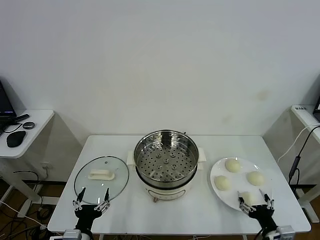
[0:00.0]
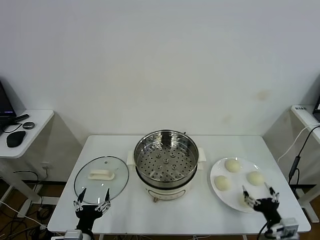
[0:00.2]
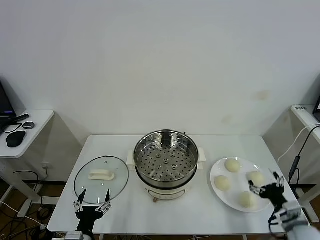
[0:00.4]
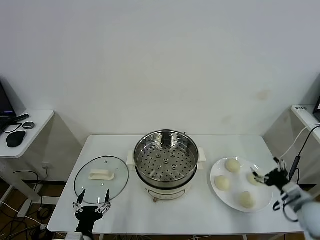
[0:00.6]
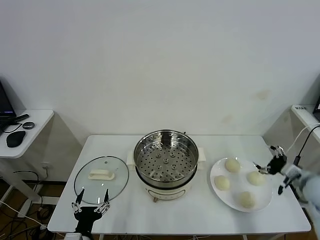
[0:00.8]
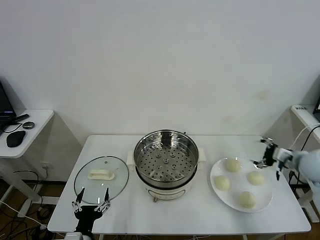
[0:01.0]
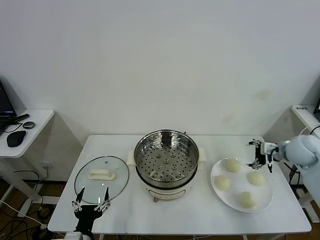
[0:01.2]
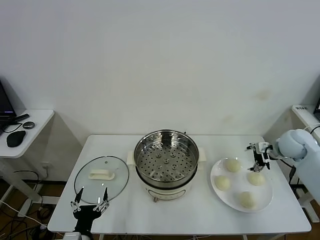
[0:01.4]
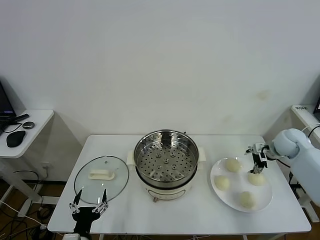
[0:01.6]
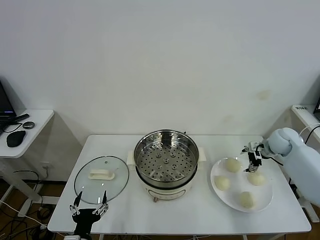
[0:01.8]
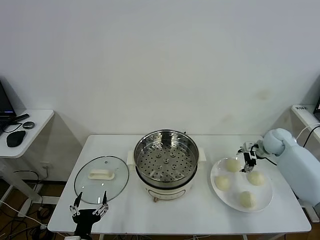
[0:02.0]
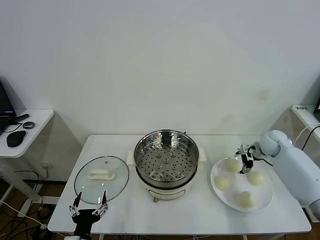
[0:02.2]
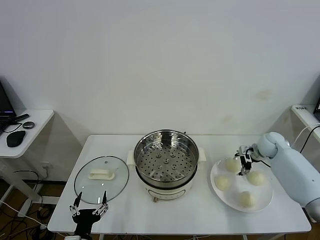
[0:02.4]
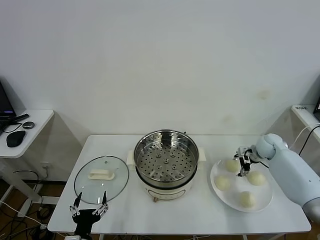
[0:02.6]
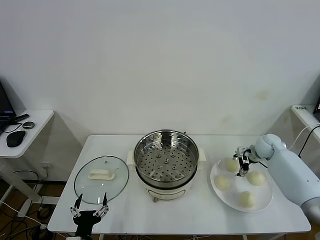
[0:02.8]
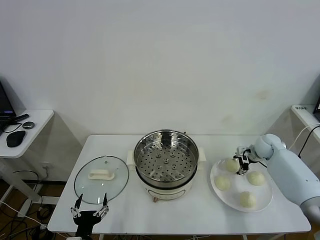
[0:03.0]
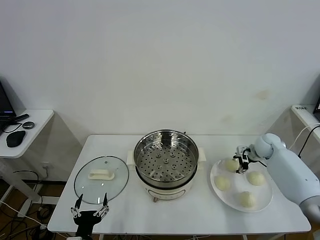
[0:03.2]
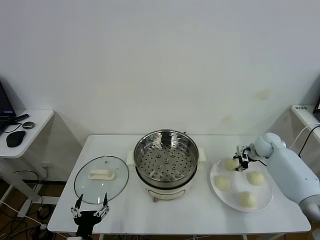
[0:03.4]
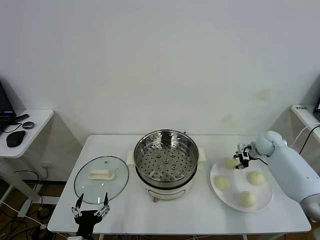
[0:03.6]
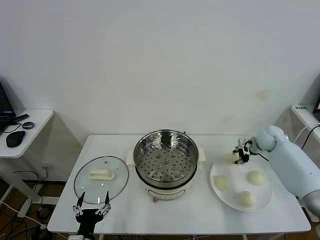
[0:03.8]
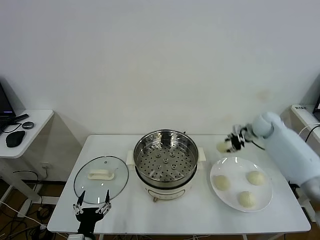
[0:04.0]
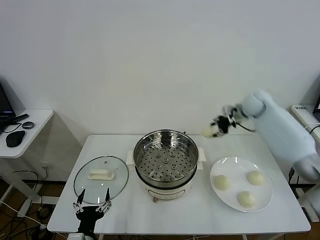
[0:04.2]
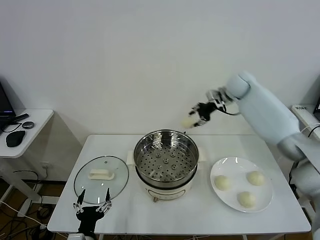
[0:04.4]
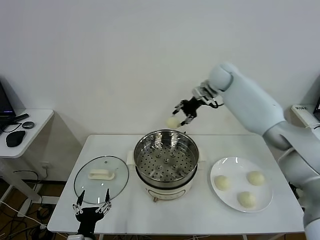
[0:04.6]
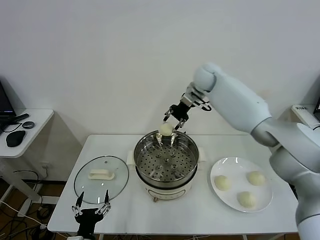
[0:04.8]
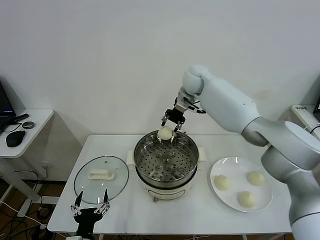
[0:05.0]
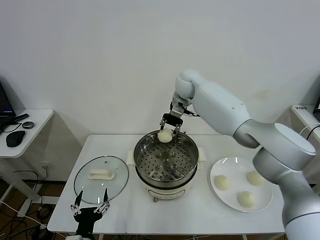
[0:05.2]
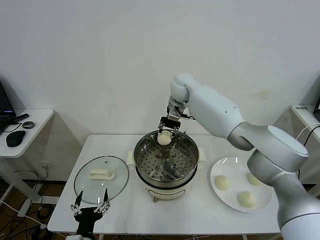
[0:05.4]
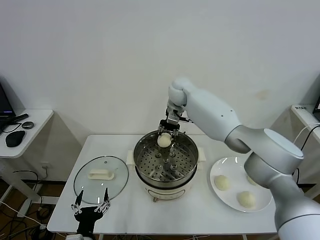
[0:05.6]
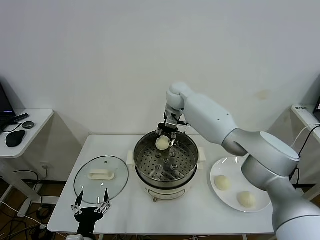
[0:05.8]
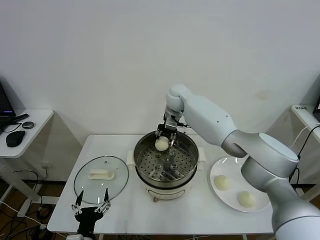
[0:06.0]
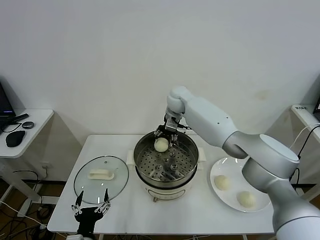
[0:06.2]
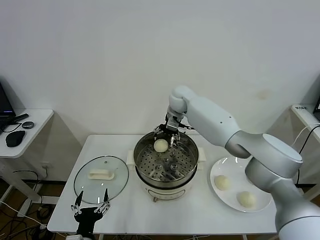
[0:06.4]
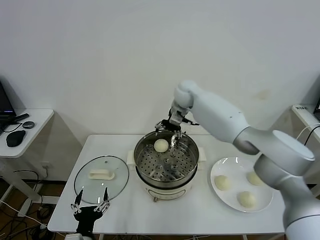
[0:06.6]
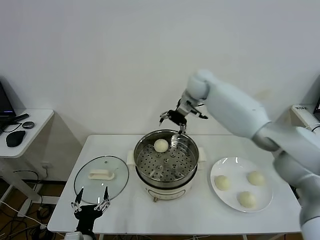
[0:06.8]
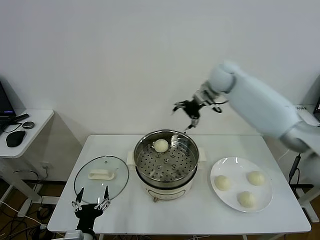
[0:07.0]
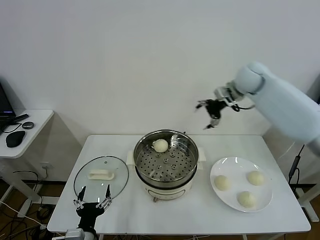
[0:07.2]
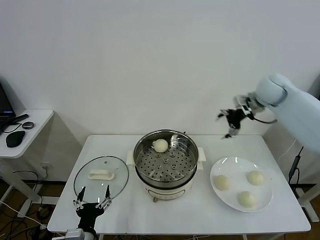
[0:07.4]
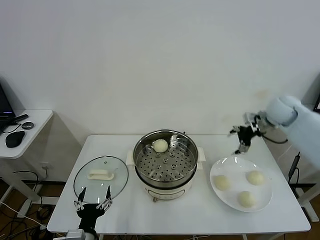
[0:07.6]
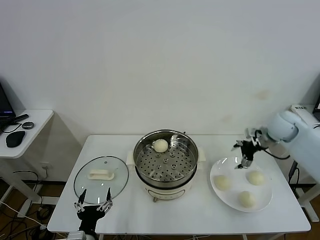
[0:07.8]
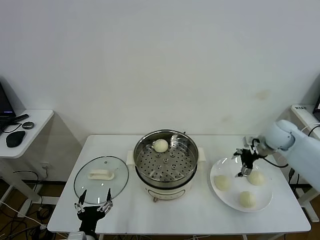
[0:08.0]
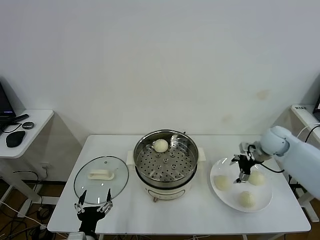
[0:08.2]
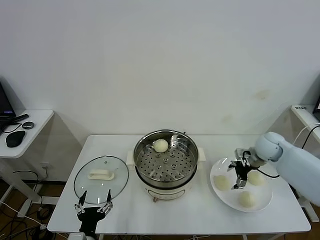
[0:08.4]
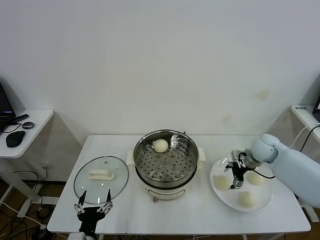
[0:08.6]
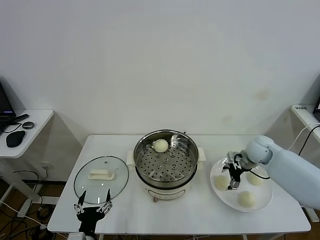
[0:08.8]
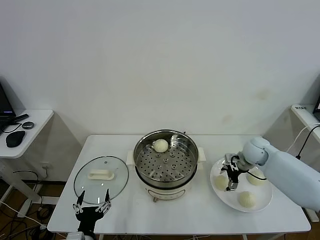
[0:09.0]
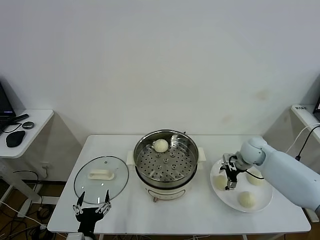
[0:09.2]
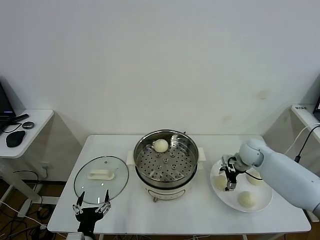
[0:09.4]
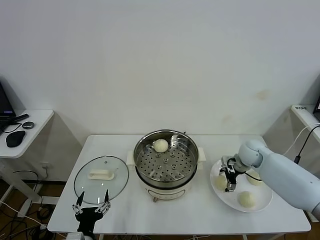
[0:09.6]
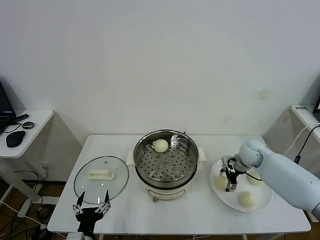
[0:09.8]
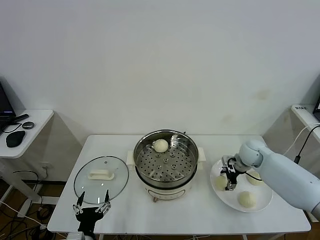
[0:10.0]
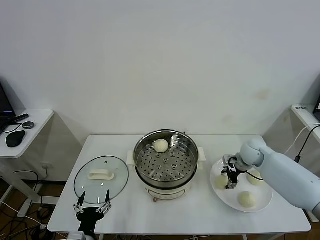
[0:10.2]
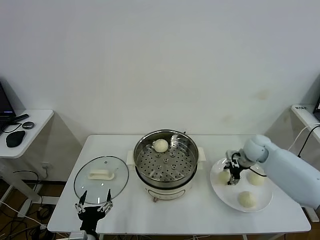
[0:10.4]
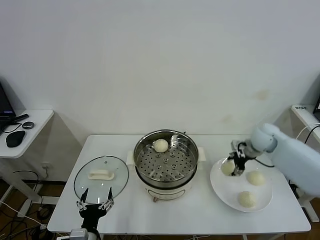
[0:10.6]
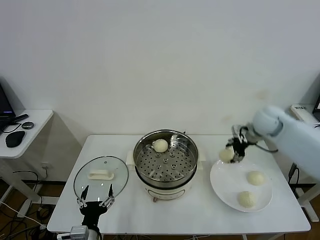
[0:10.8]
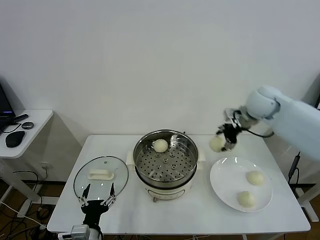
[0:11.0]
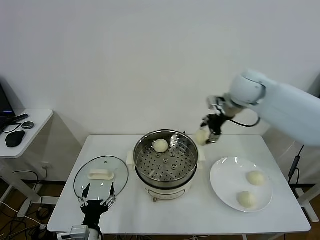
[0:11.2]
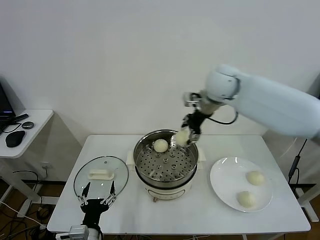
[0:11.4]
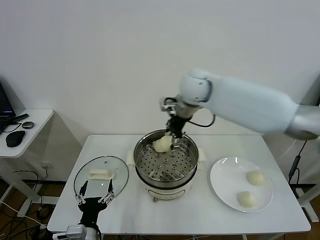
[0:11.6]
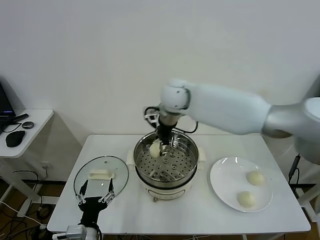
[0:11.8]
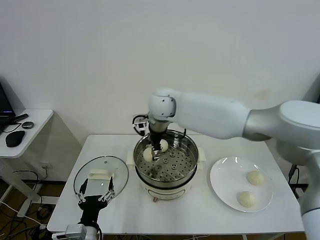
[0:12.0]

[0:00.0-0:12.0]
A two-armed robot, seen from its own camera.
Task of the whole recording: take steamed baozi put them in steamer.
Step, 0:00.0 to 0:03.4: Grasp the baozi in the plate with right gripper.
Step, 0:03.6 to 0:06.4: Place the baozi on the steamer with right gripper.
Step, 0:06.6 to 0:10.0: Grasp the baozi in the plate with right gripper.
0:01.6 to 0:03.0: The right gripper is displaced downward by roughly 5 cm.
0:03.0 to 0:04.4: The right gripper goes roughly 30 cm upward, to the left and forward, and closes its fingers.
0:04.4 to 0:06.0: The right gripper travels to the left by some 20 cm.
0:06.0 to 0:07.6: The right gripper moves to the right, approximately 35 cm, and opens its fingers.
0:07.6 to 0:09.0: The right gripper moves downward, about 15 cm.
0:09.0 to 0:10.4: The right gripper closes its fingers.
0:10.4 to 0:12.0: The right gripper shifts approximately 40 cm to the left and upward.

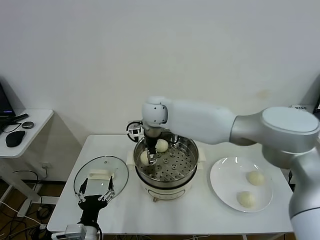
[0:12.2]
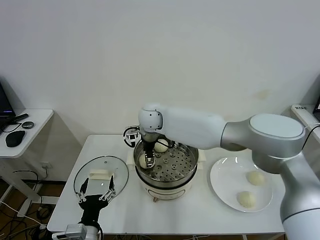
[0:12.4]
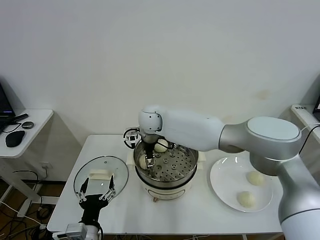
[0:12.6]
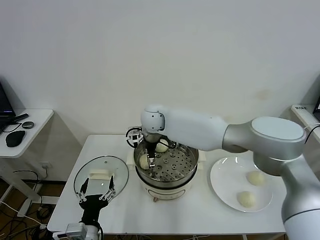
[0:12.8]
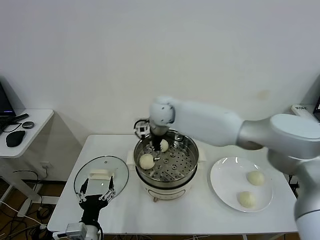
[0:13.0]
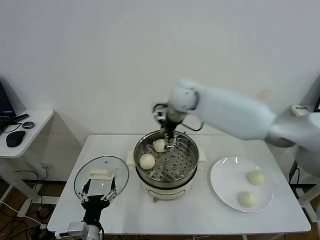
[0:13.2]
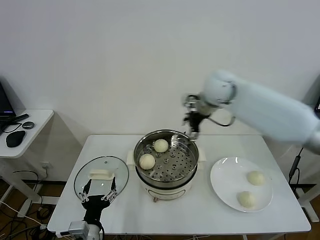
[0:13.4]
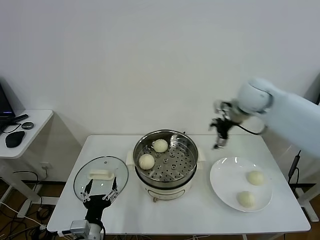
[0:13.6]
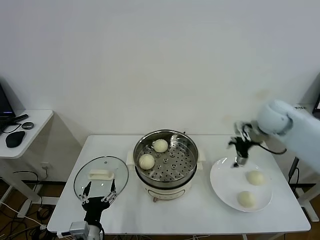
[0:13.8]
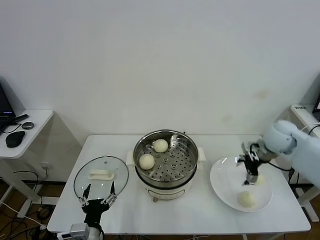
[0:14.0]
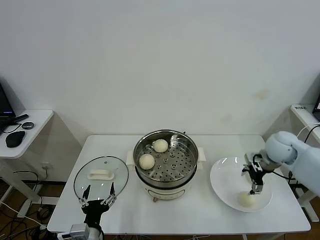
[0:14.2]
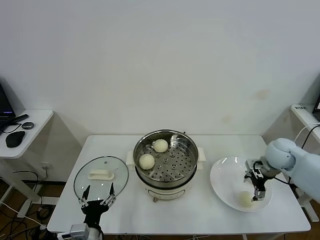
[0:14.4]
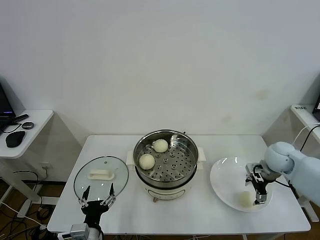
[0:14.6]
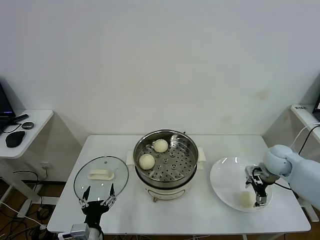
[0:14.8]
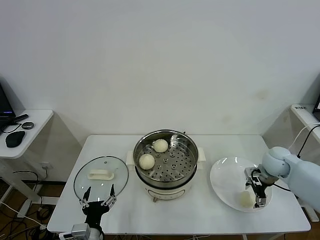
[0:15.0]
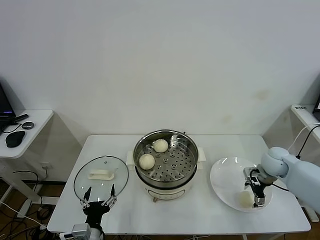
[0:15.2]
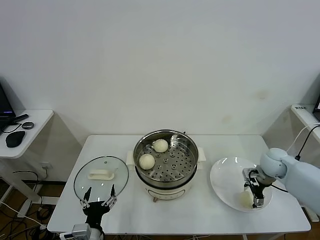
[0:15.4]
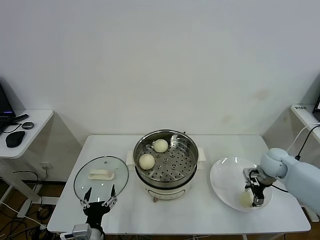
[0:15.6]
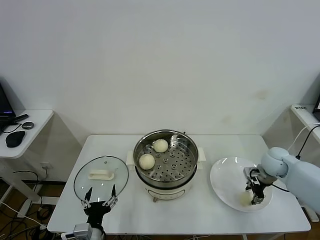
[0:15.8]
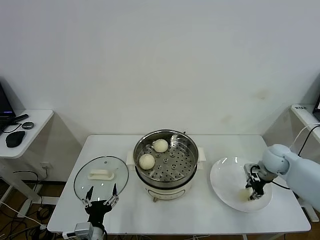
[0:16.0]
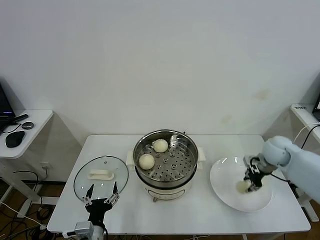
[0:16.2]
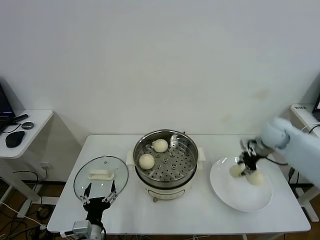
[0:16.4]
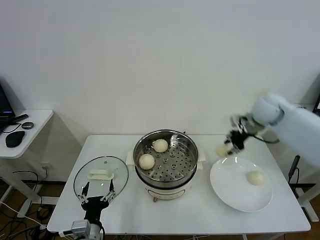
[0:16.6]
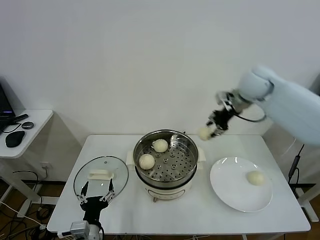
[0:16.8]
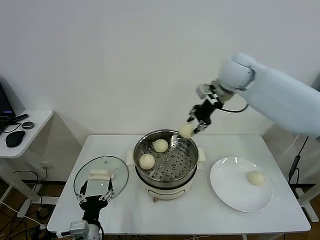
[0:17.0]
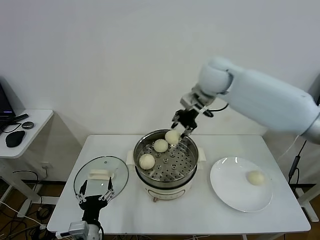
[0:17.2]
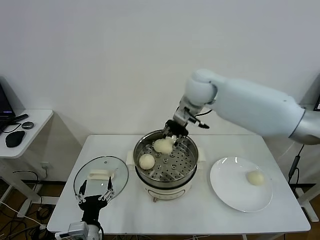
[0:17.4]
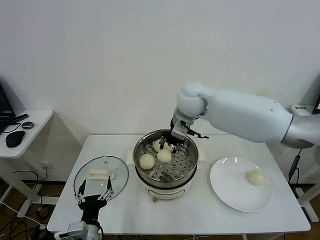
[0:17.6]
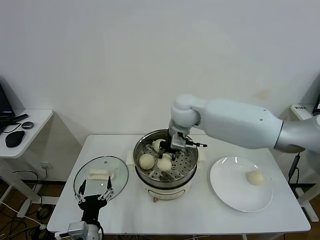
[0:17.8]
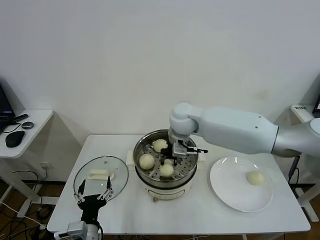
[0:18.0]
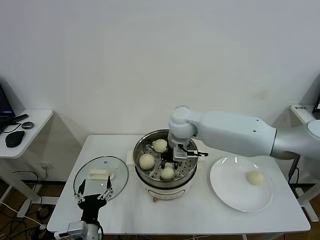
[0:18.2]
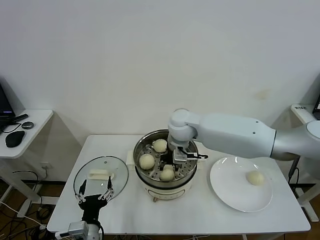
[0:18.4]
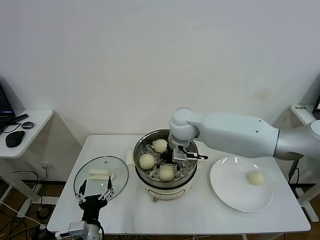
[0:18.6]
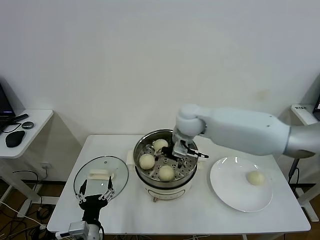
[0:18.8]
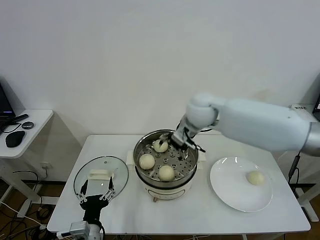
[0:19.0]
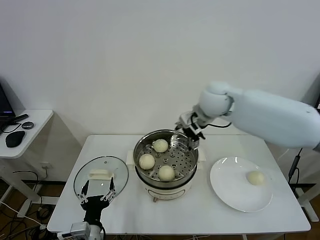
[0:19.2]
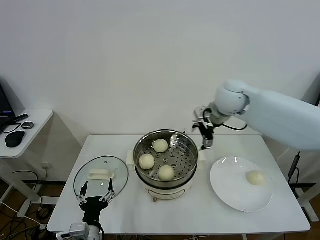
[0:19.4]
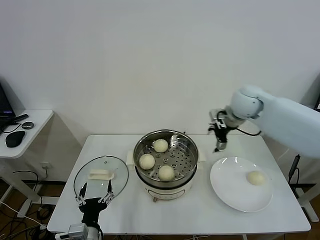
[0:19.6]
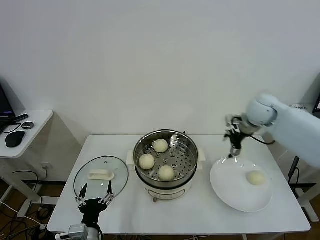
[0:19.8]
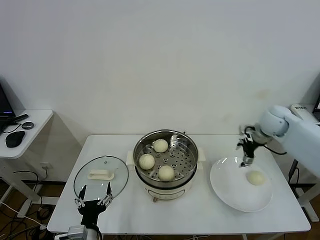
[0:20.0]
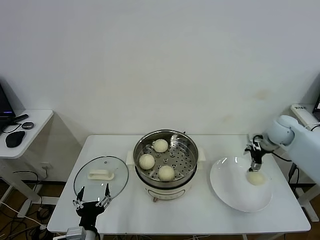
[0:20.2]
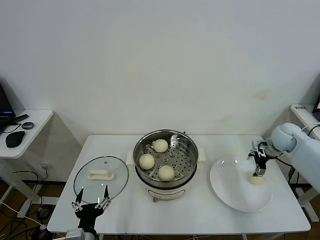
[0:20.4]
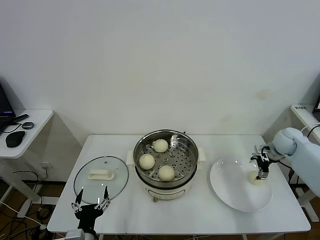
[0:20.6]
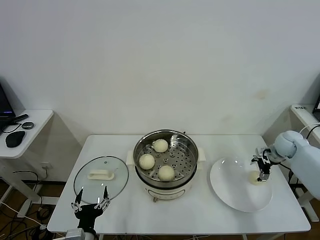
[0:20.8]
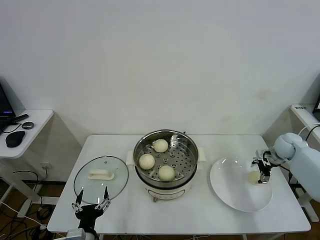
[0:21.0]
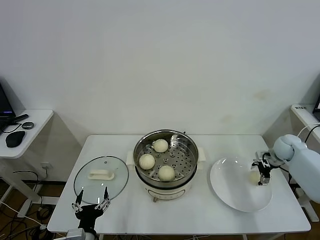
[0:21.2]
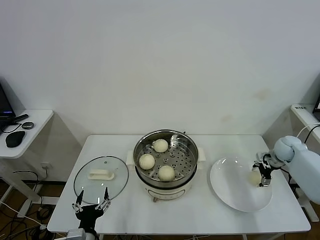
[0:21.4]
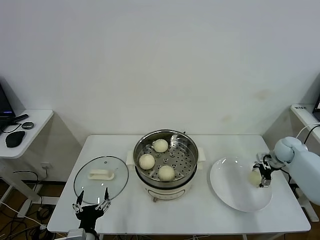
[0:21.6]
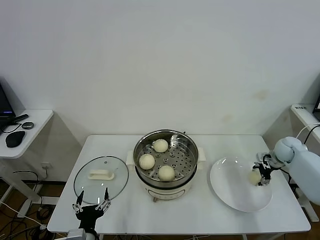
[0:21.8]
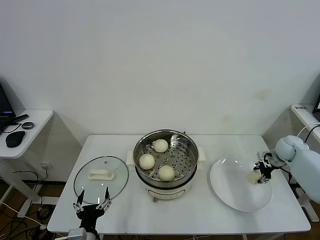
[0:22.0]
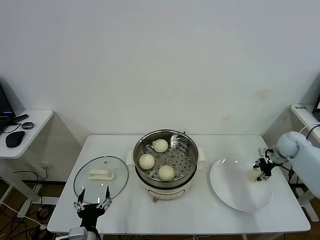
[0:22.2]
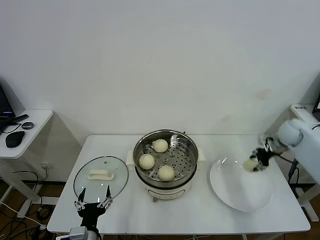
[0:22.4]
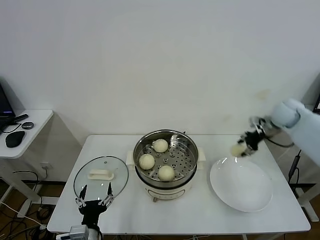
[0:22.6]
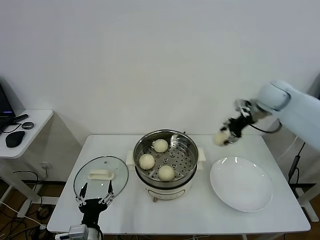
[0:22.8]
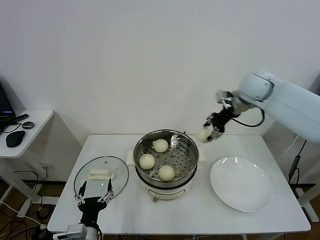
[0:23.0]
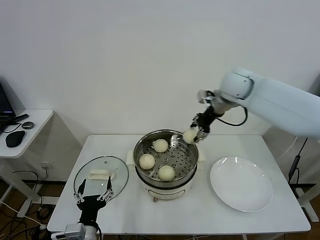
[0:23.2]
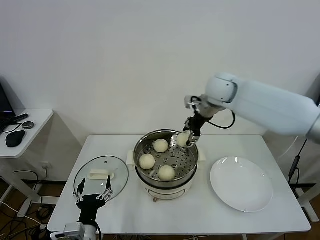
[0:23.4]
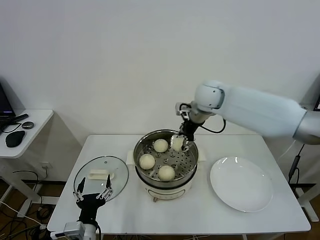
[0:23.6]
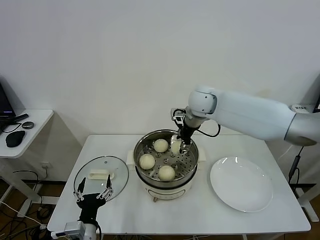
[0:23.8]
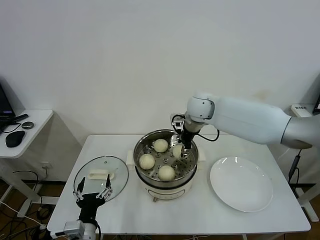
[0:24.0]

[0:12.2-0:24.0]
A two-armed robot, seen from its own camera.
Task of the whole recording: take steamed baozi put them in steamer.
Step, 0:13.2 to 0:15.8: Grasp the baozi in the plate with right gripper.
Step, 0:16.0 to 0:18.8: Place the baozi on the steamer with right gripper.
Step, 0:19.0 to 0:21.8: Grasp the baozi in the plate with right gripper.
0:12.2 to 0:13.6: The right gripper heads to the right, covering roughly 30 cm, and opens its fingers.
0:13.6 to 0:15.2: The right gripper moves downward and to the right, some 25 cm.
0:15.2 to 0:16.6: The right gripper shifts some 20 cm upward and forward, and closes.
0:16.6 to 0:18.2: The right gripper moves to the left, some 25 cm.
0:18.2 to 0:19.6: The right gripper heads to the right, covering roughly 20 cm, and opens its fingers.
0:19.6 to 0:21.0: The right gripper heads to the right and downward, covering roughly 30 cm.
0:21.0 to 0:22.6: The right gripper shifts approximately 15 cm upward and to the left, and closes its fingers.
0:22.6 to 0:24.0: The right gripper goes roughly 30 cm to the left.
